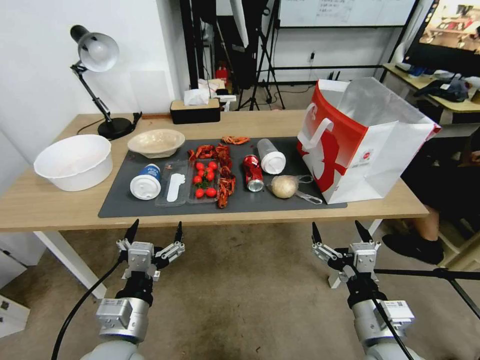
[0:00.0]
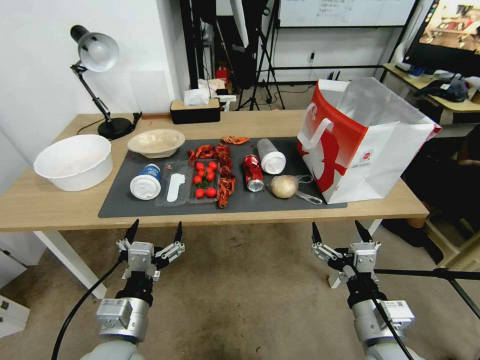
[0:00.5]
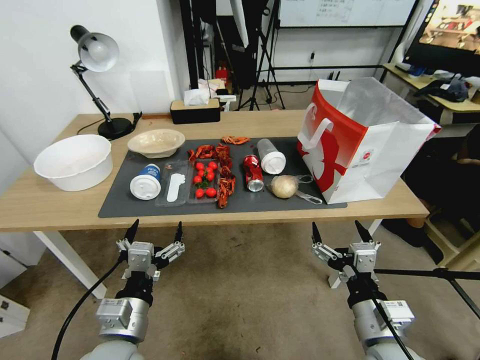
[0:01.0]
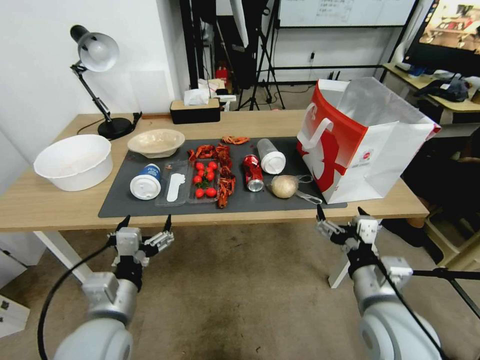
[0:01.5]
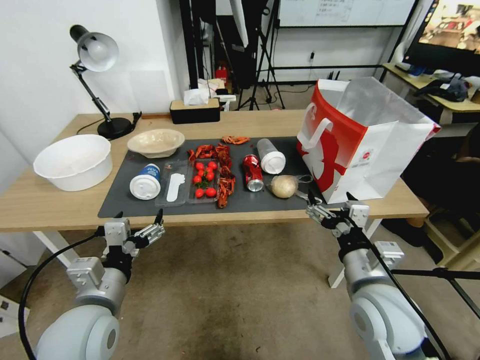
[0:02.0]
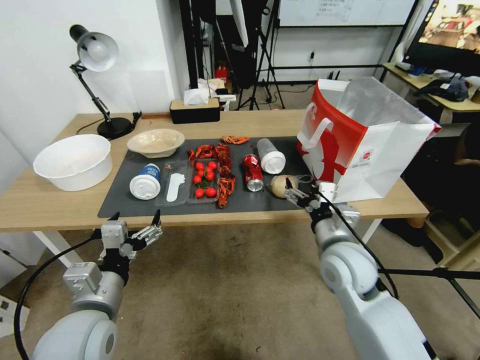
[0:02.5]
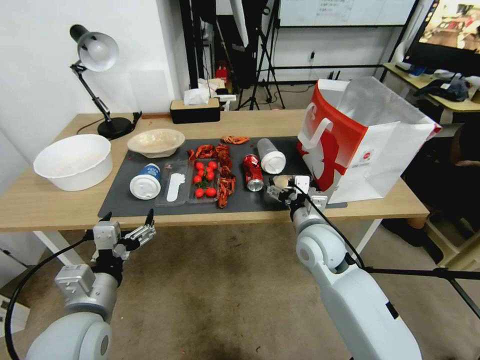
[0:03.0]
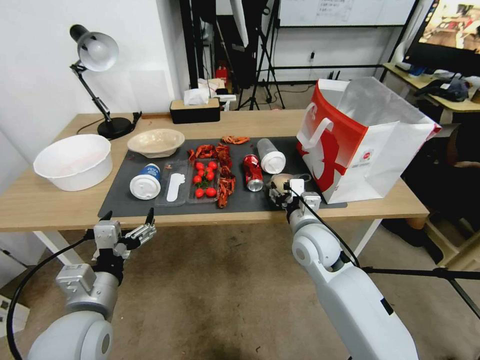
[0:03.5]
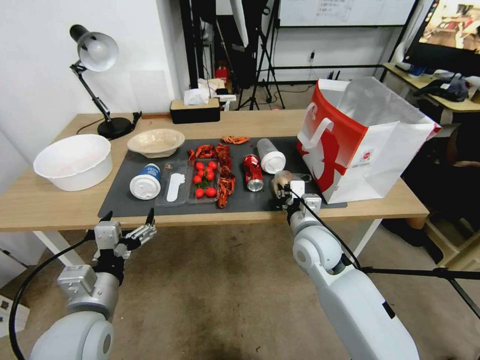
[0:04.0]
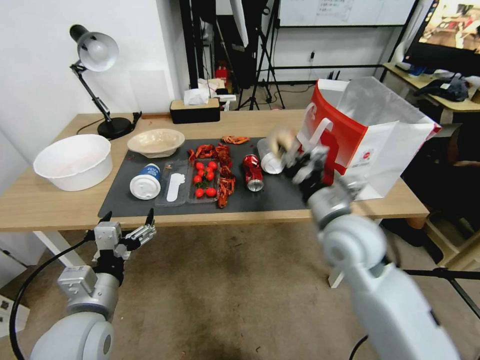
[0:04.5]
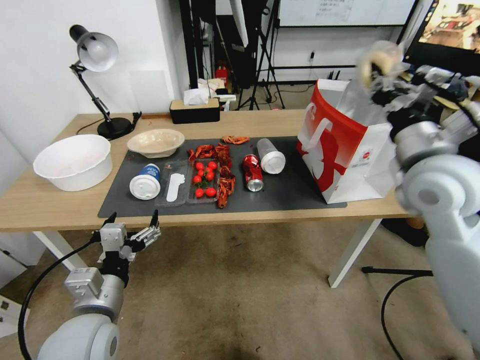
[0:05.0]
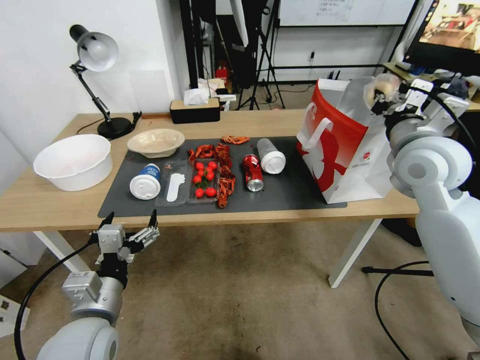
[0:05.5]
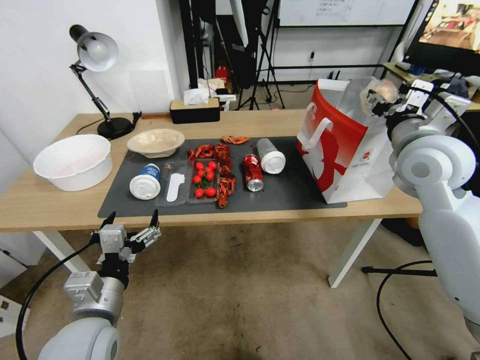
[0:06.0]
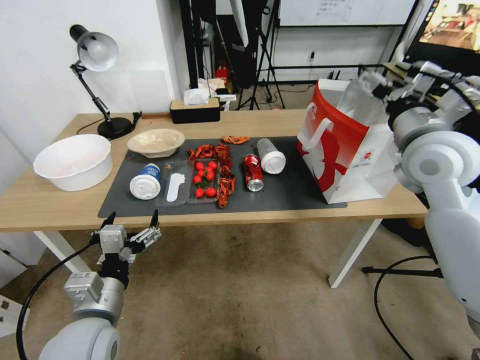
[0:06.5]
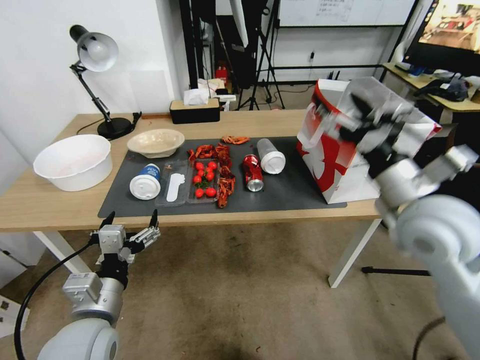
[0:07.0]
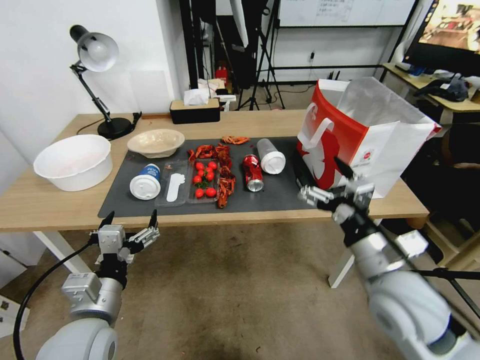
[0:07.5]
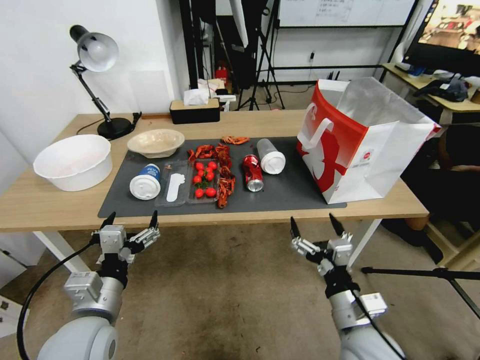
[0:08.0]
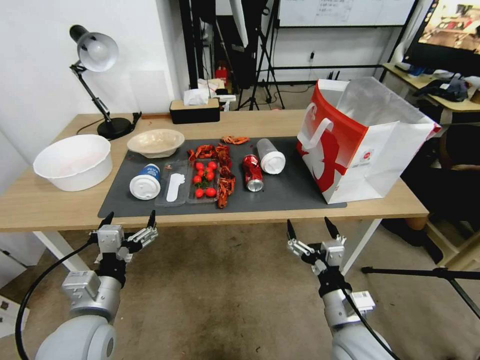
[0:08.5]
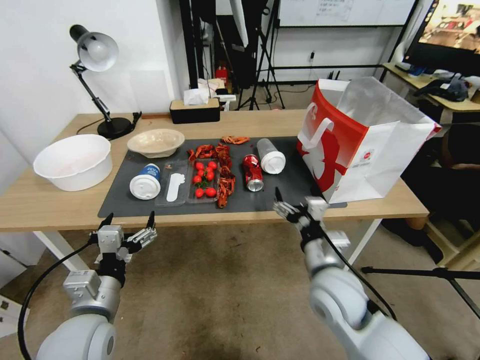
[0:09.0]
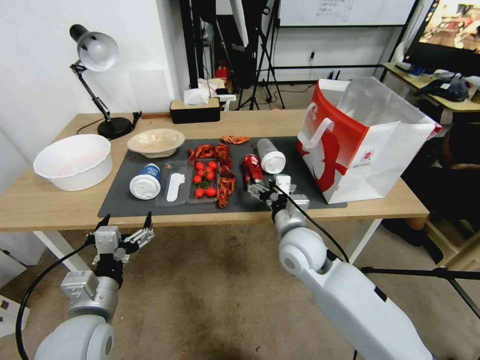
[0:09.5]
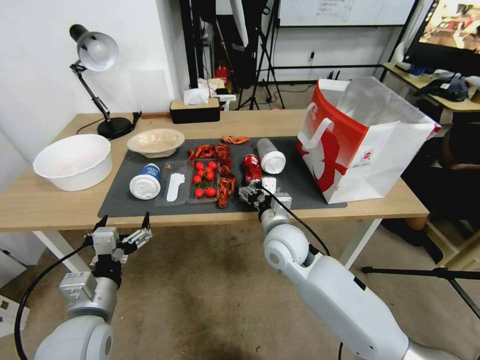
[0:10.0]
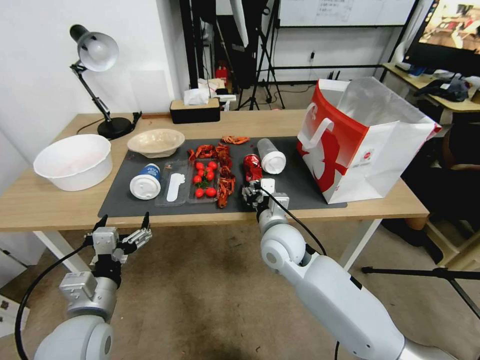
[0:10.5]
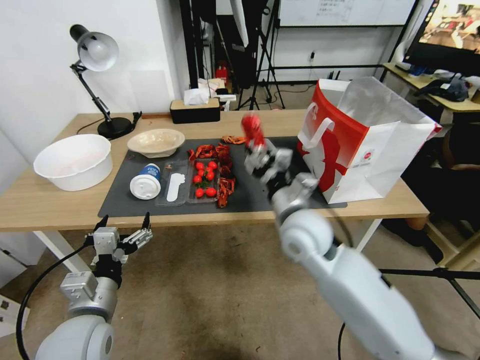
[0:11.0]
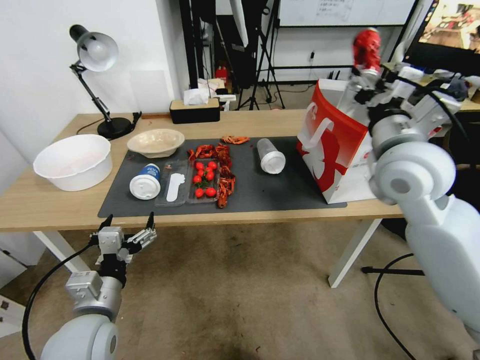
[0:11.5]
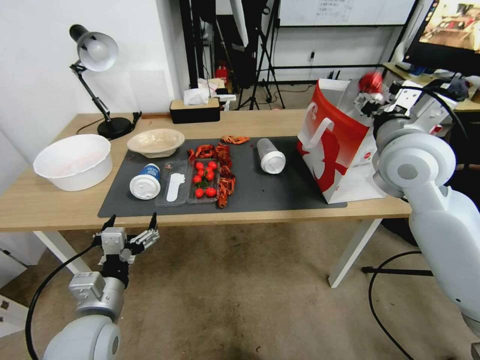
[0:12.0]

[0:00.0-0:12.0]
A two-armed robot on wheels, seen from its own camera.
0:02.0 to 0:04.0: The right gripper goes roughly 15 cm forward and to the left, and closes its fingers.
0:04.0 to 0:06.0: The right gripper goes roughly 25 cm upward and to the right, and opens.
0:06.0 to 0:08.0: The right gripper heads downward and backward, covering some 30 cm, and opens.
0:08.0 to 0:10.0: The right gripper goes roughly 20 cm forward and to the left.
0:10.0 to 0:12.0: The right gripper heads upward and to the right, covering some 30 cm.

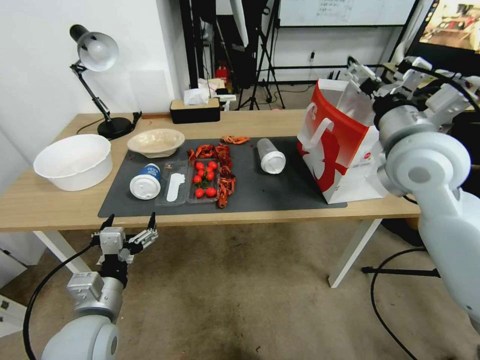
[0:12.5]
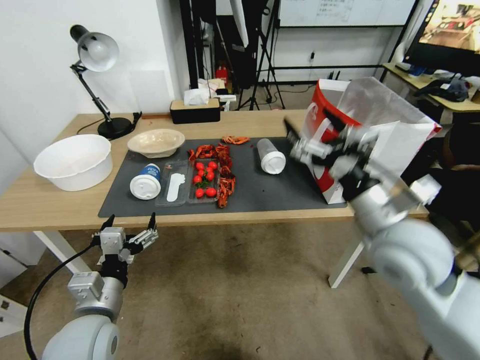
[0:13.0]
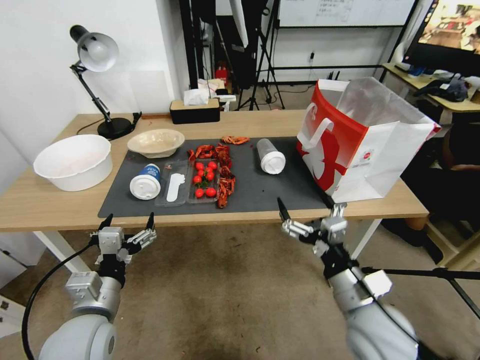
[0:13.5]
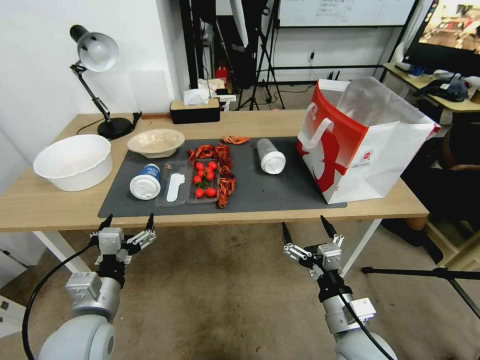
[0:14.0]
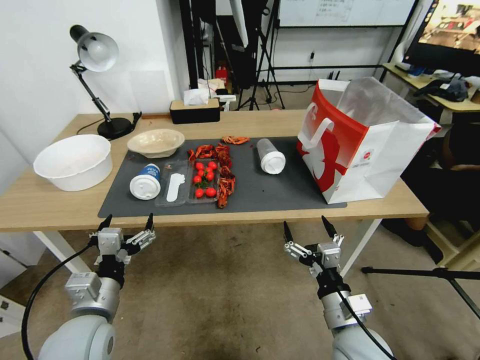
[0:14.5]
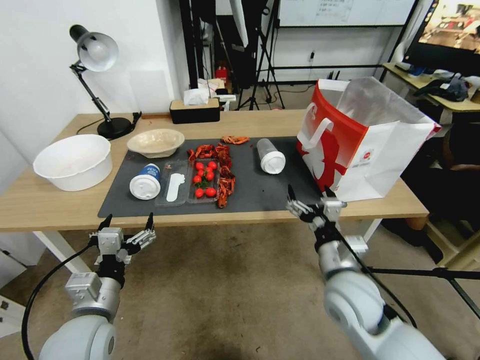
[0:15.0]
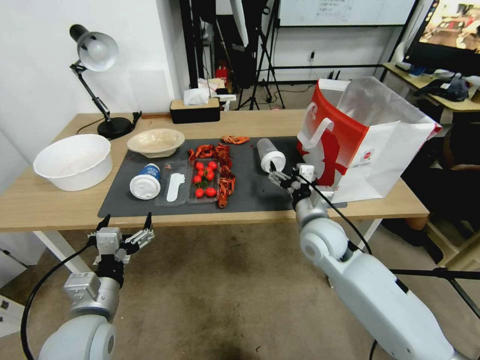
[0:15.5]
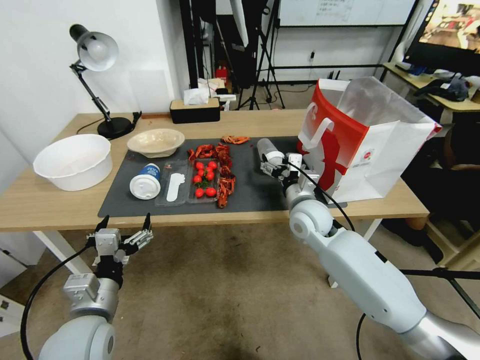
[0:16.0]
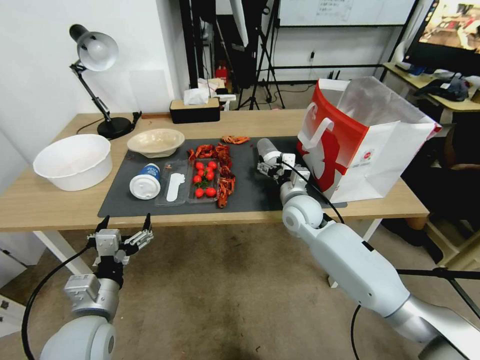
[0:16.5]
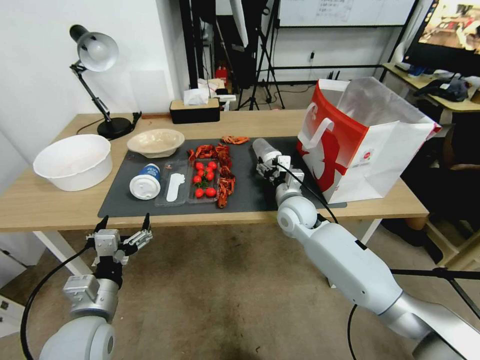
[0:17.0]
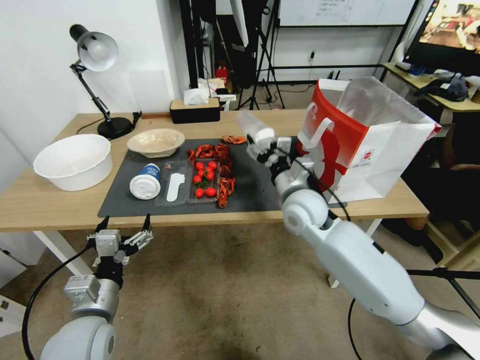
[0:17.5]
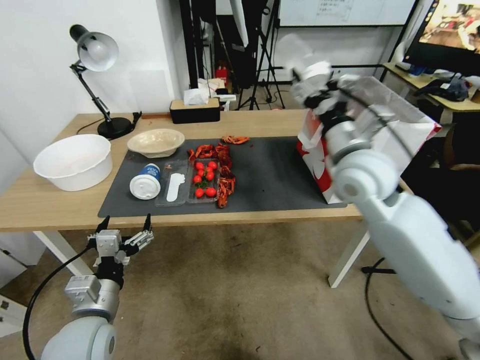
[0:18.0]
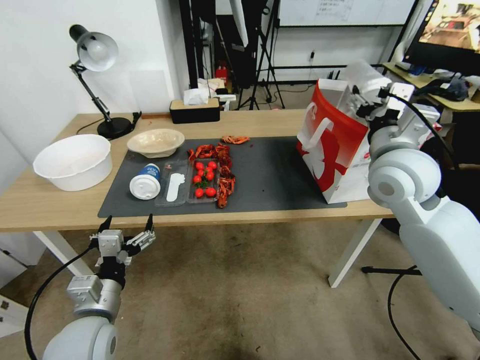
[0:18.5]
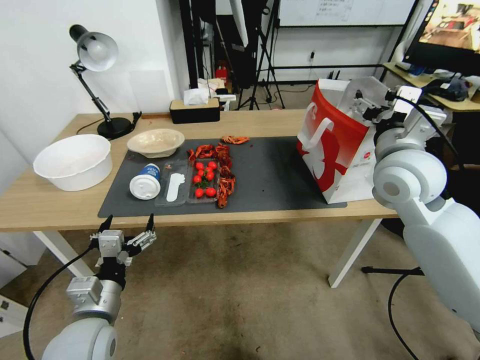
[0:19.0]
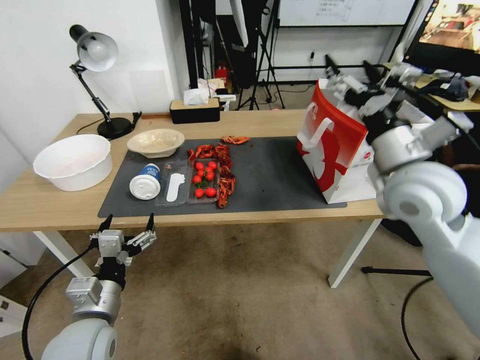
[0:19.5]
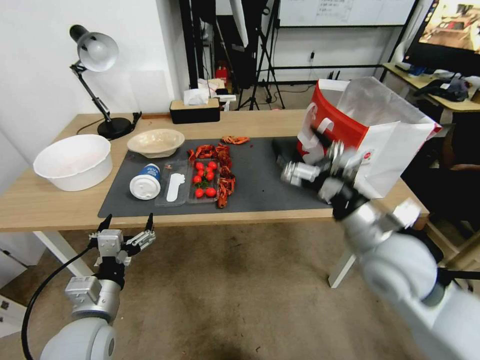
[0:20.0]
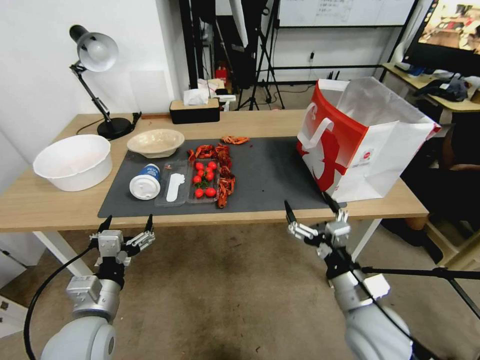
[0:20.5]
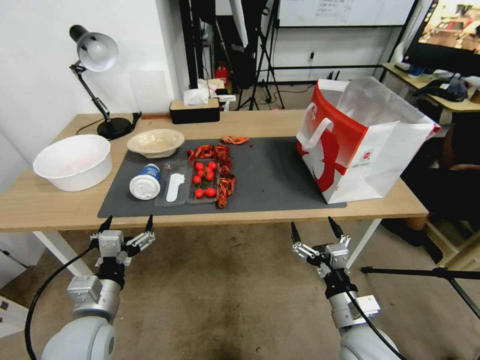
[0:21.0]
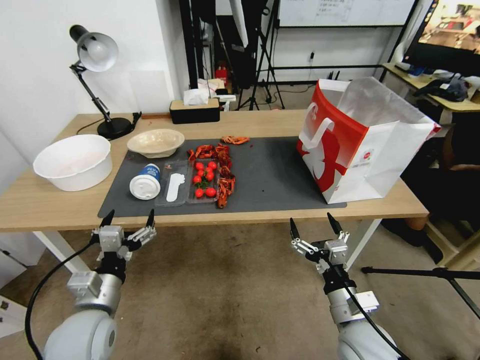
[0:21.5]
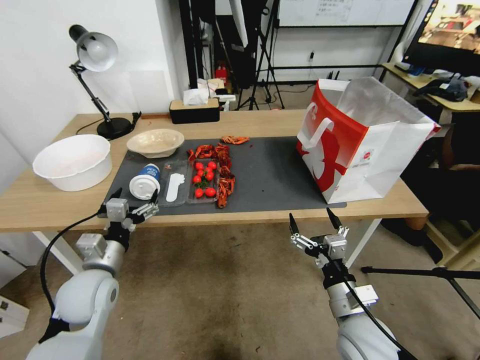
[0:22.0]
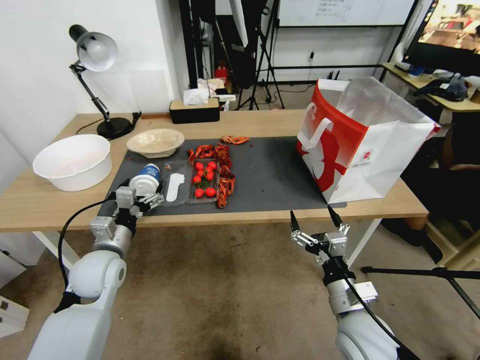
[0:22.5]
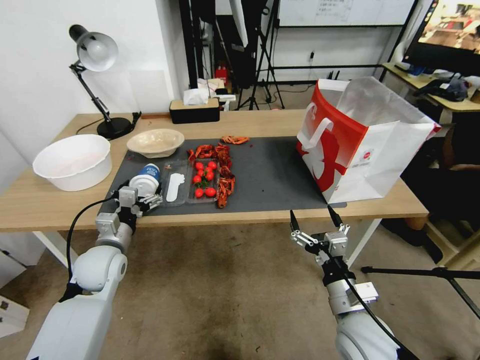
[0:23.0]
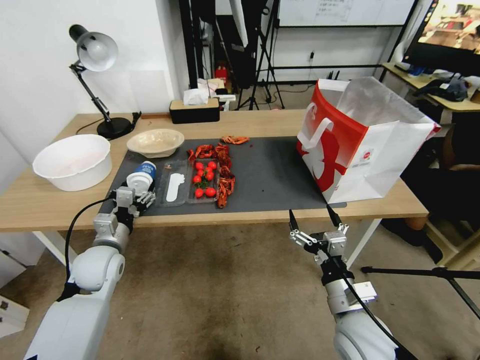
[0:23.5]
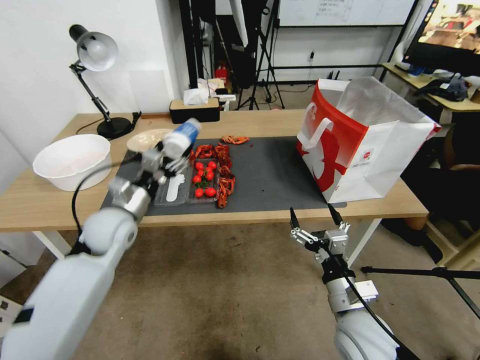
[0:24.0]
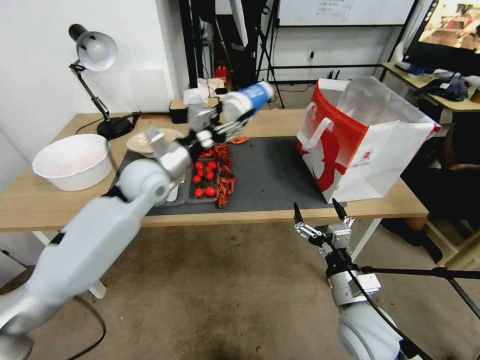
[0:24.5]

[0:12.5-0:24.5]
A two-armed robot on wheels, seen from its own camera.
0:12.5 to 0:14.5: The right gripper heads downward and backward, covering approximately 35 cm.
0:14.5 to 0:16.5: The right gripper heads forward, covering about 30 cm.
0:16.5 to 0:18.5: The right gripper moves upward and to the right, some 25 cm.
0:18.5 to 0:20.5: The right gripper goes some 30 cm downward and backward.
0:20.5 to 0:22.5: The left gripper shifts some 15 cm forward.
0:22.5 to 0:24.5: The left gripper shifts roughly 20 cm upward, forward and to the right.

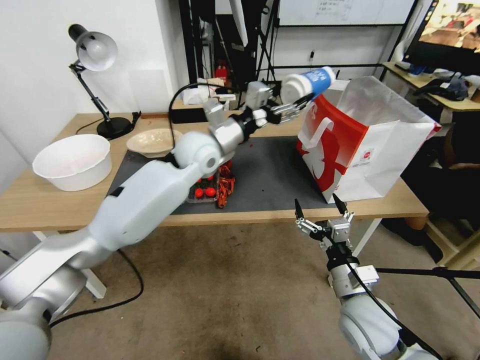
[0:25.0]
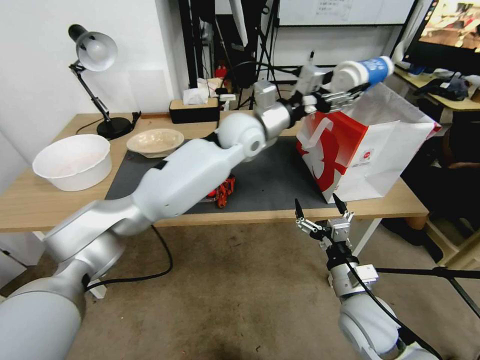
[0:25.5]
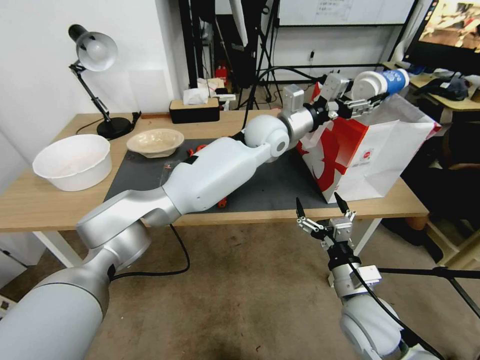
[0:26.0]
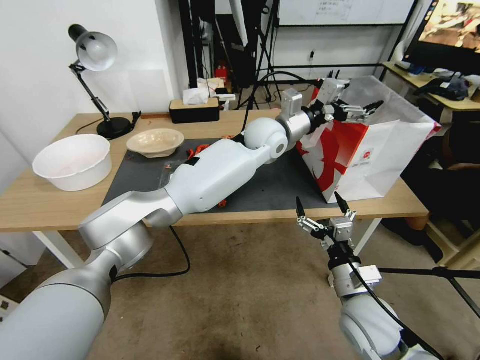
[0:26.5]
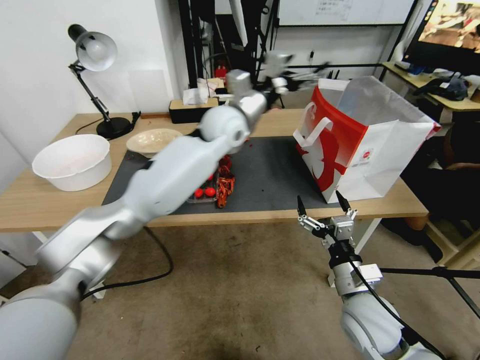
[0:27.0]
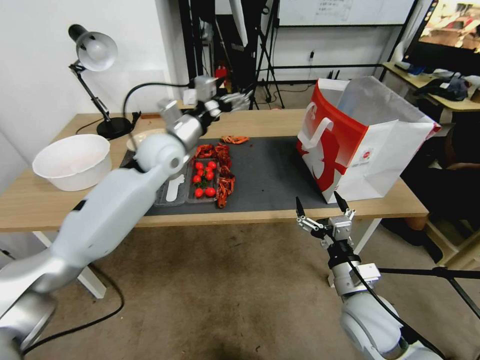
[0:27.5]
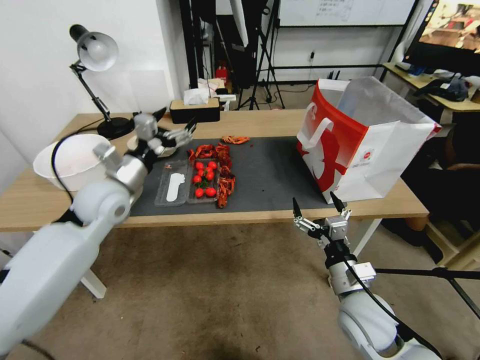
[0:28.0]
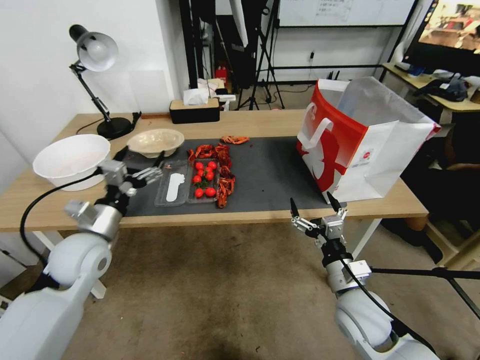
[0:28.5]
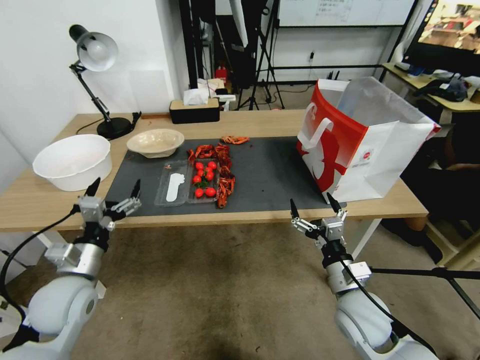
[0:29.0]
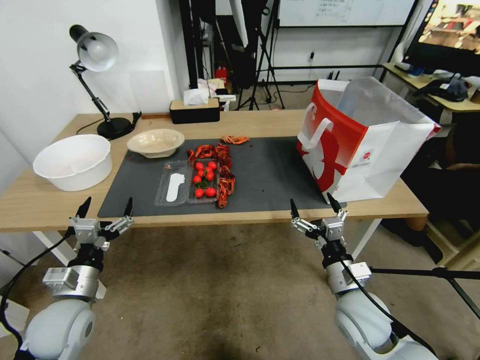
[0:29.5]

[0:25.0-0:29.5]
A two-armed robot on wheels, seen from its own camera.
0:25.0 to 0:27.0: The left gripper goes some 5 cm to the right.
0:27.0 to 0:29.5: The left gripper heads backward, to the left and downward, covering some 50 cm.
